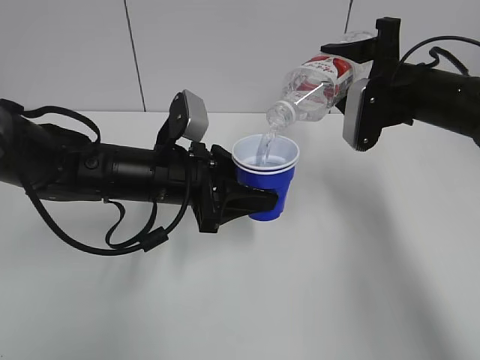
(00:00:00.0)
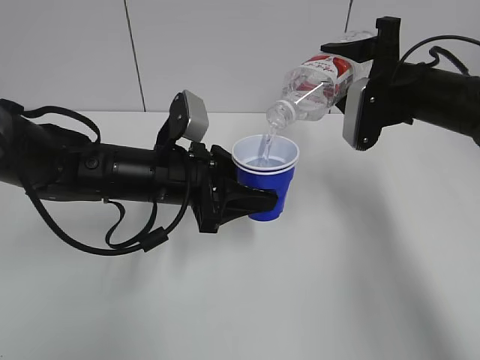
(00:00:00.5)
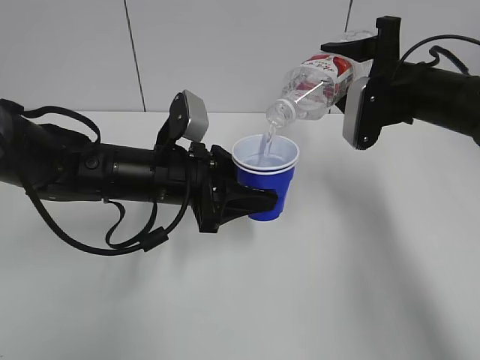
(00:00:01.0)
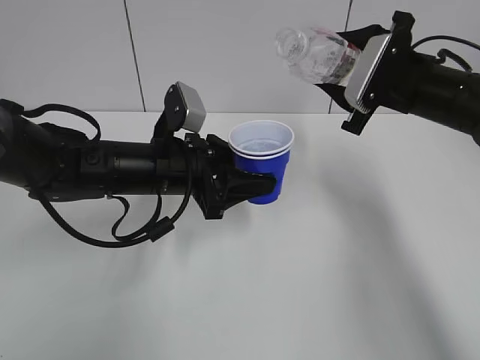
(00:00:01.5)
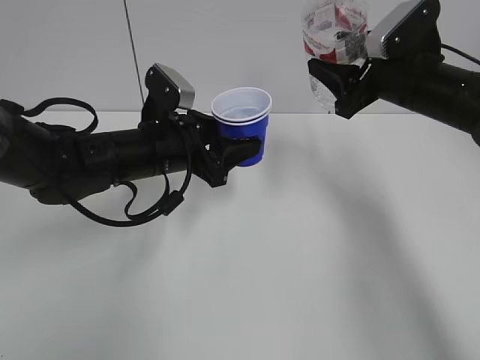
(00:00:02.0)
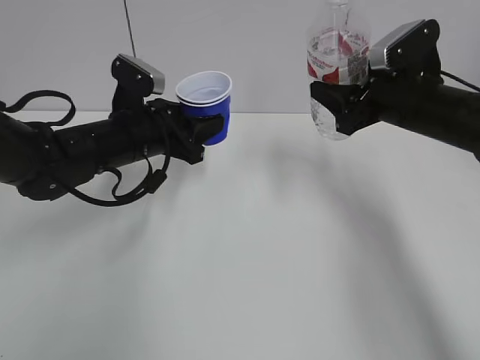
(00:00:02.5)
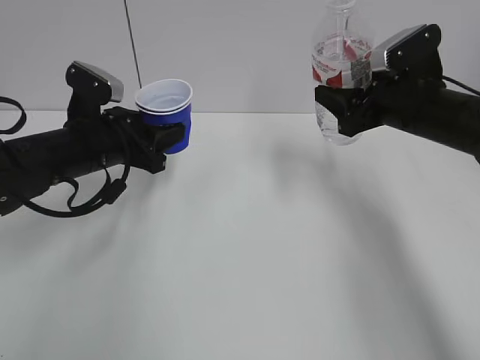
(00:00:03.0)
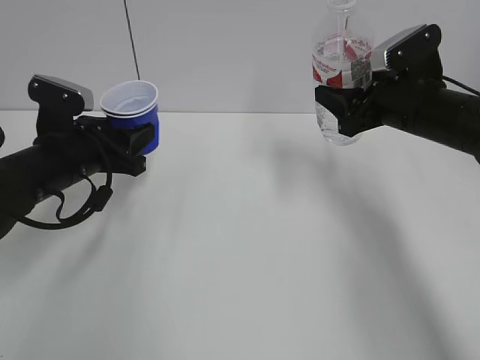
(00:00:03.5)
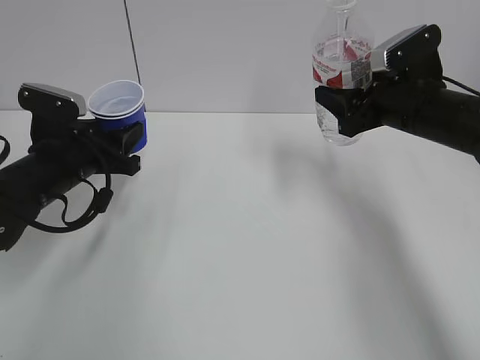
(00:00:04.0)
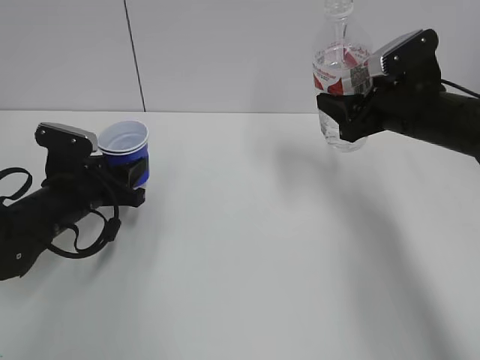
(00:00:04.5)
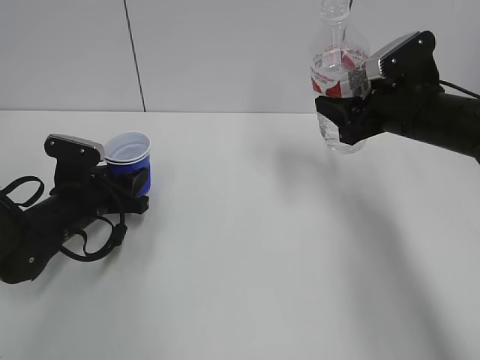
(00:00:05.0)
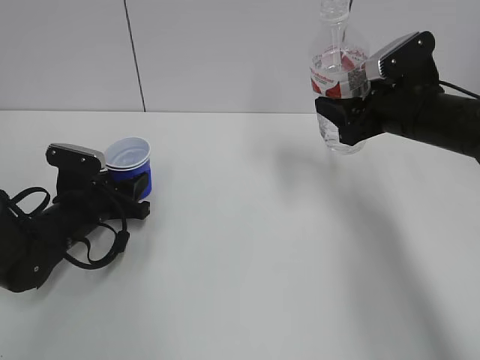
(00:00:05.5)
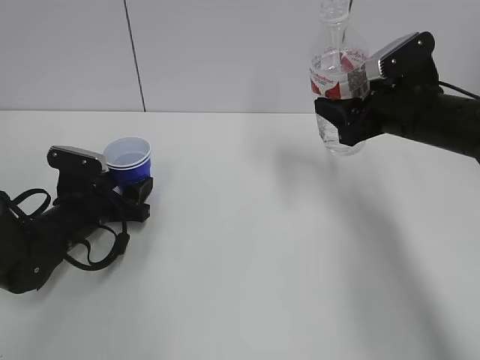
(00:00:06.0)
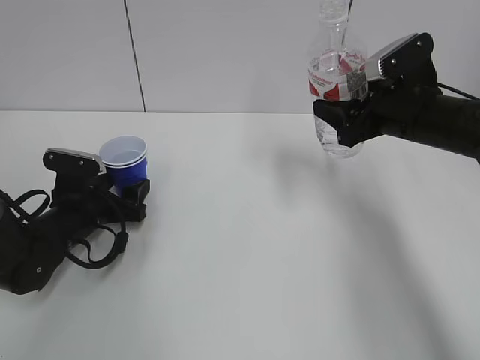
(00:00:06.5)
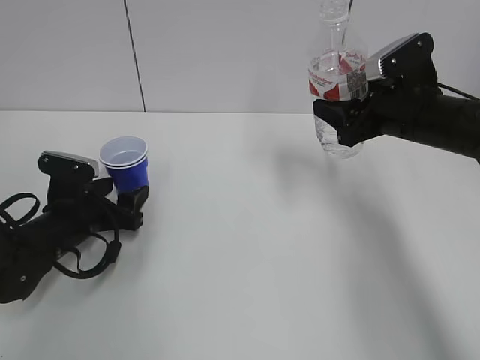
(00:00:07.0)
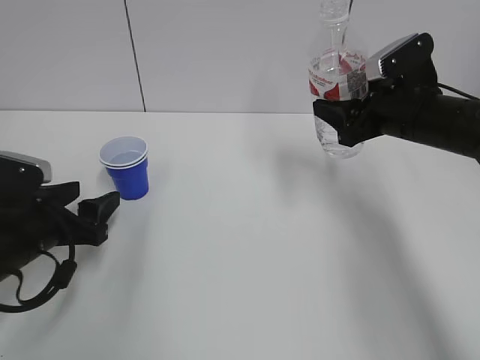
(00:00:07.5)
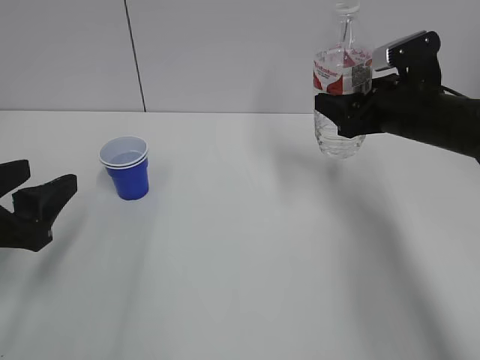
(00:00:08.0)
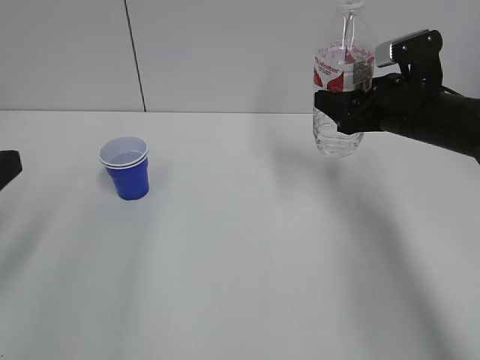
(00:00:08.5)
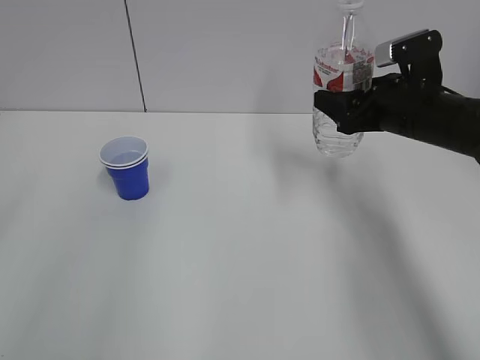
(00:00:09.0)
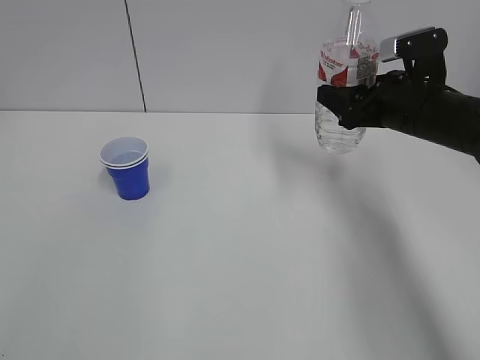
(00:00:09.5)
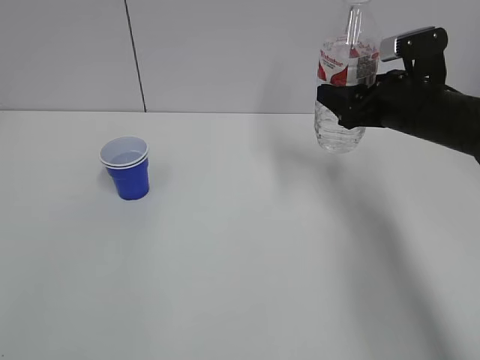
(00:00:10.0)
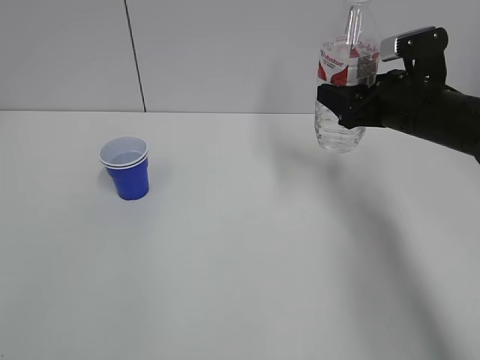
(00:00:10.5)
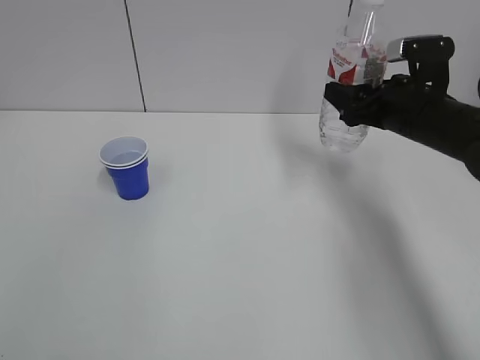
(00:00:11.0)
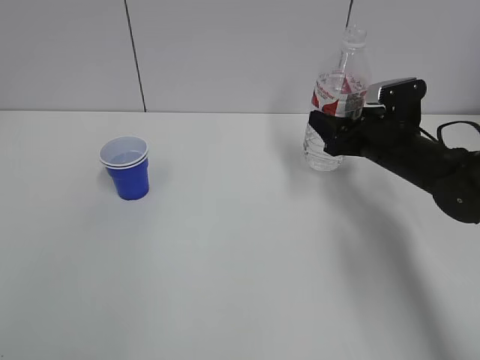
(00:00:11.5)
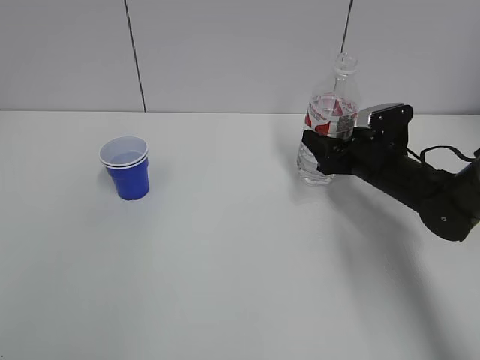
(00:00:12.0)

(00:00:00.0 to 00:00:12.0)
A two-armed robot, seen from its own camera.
Step, 00:00:02.5 - 00:00:06.5: Place the paper cup with the left hand.
00:00:02.0 - 00:00:04.0: The left gripper travels to the left by approximately 10 cm, and closes.
00:00:04.0 - 00:00:06.0: The left gripper moves downward, roughly 10 cm, and opens up.
00:00:06.0 - 00:00:08.0: The left gripper goes some 20 cm backward and upward.
00:00:08.0 - 00:00:10.0: The left gripper heads backward and upward, covering about 25 cm, and closes up.
00:00:10.0 - 00:00:12.0: The right gripper shifts roughly 10 cm downward.

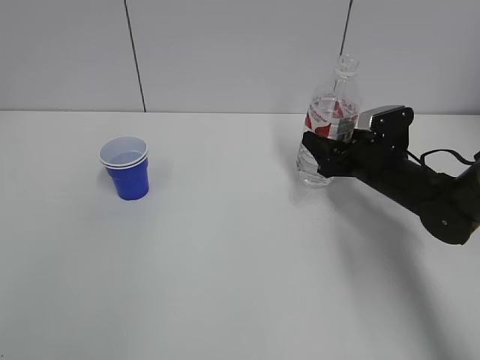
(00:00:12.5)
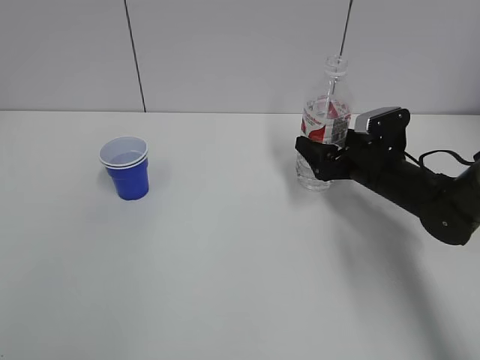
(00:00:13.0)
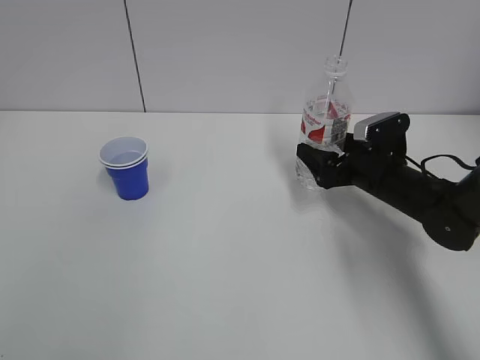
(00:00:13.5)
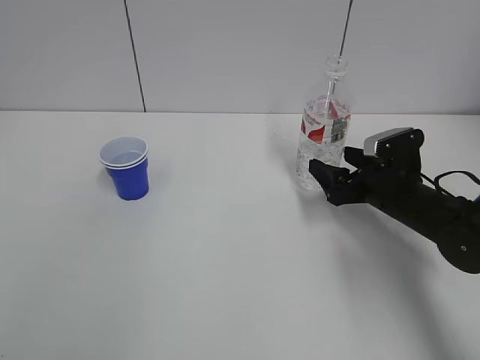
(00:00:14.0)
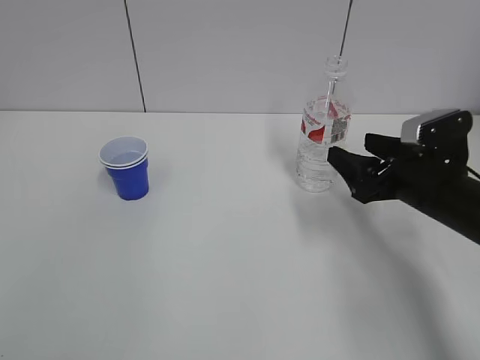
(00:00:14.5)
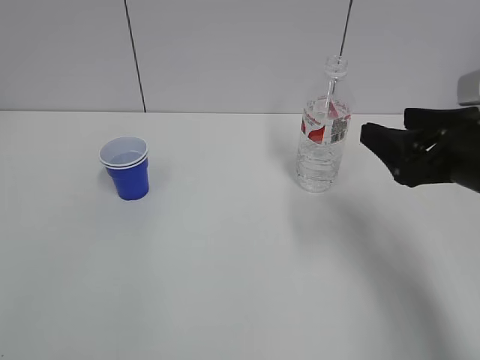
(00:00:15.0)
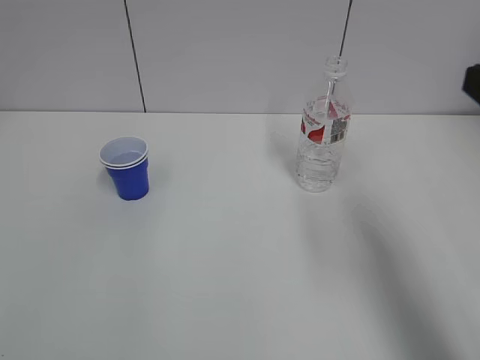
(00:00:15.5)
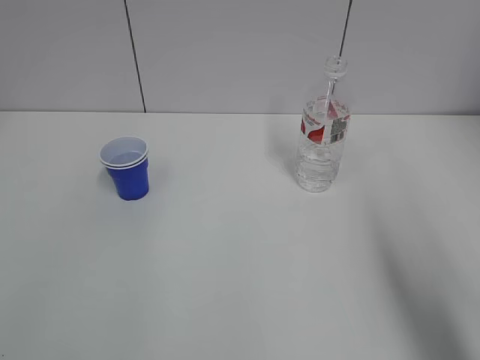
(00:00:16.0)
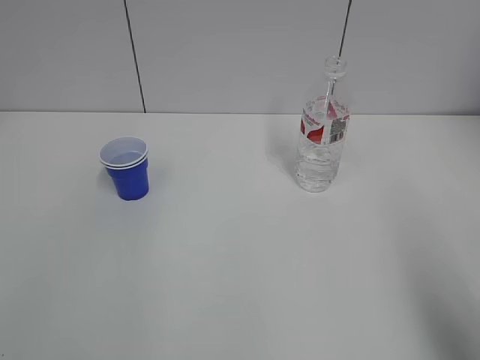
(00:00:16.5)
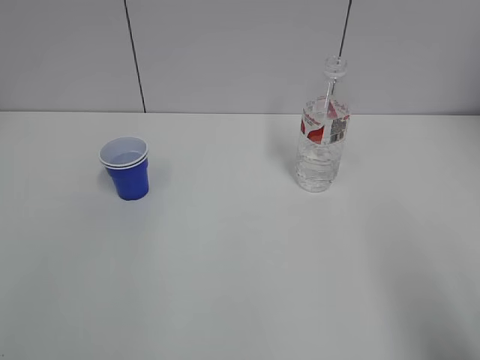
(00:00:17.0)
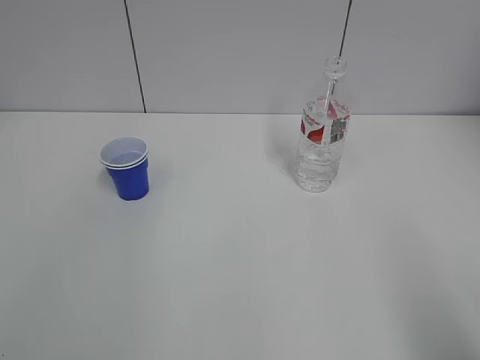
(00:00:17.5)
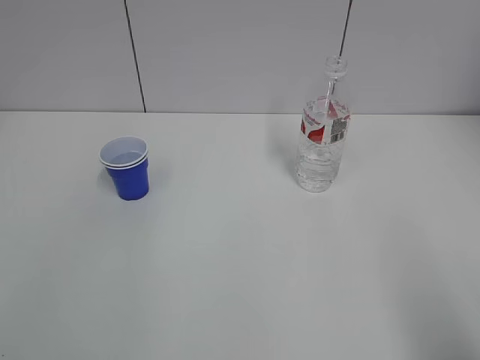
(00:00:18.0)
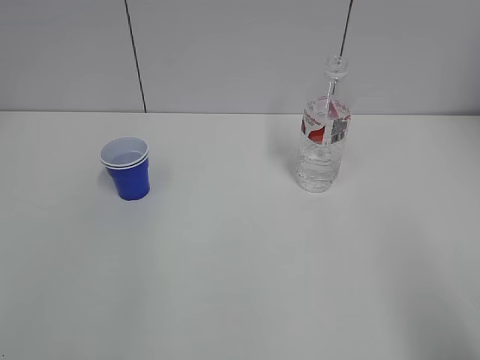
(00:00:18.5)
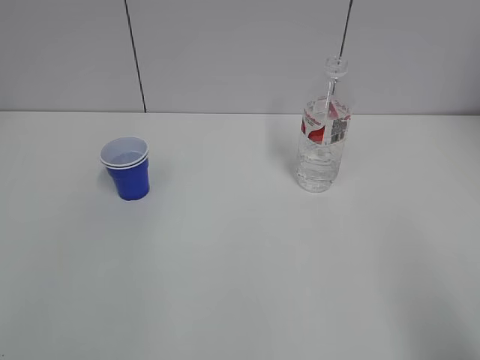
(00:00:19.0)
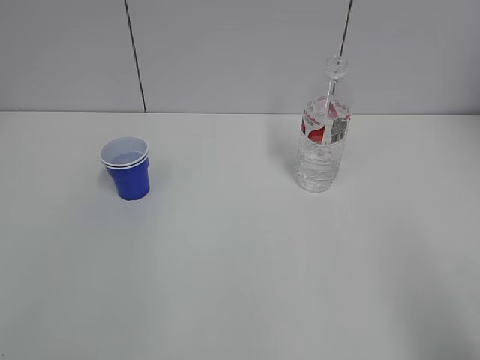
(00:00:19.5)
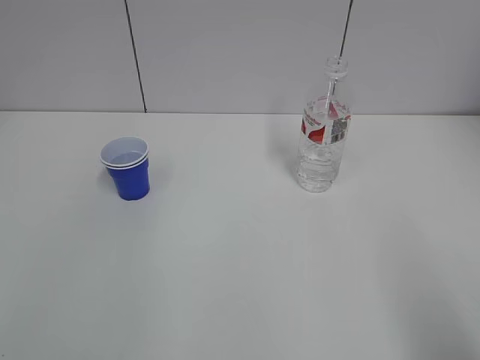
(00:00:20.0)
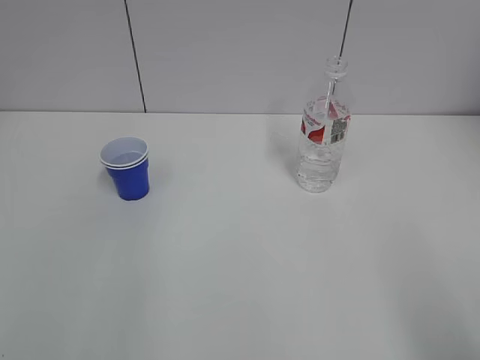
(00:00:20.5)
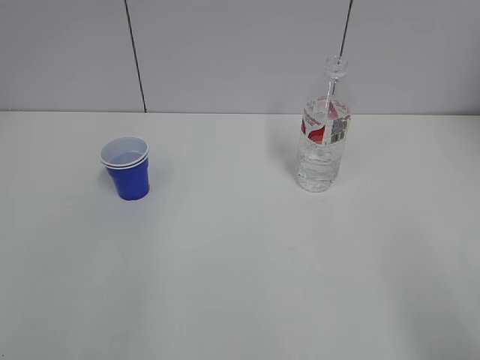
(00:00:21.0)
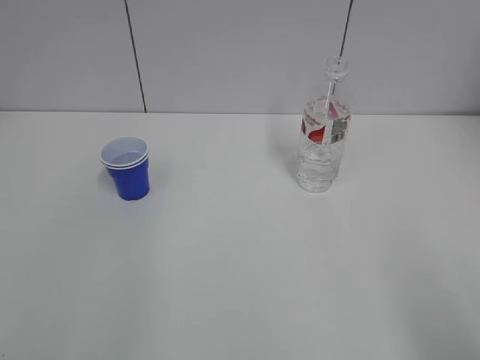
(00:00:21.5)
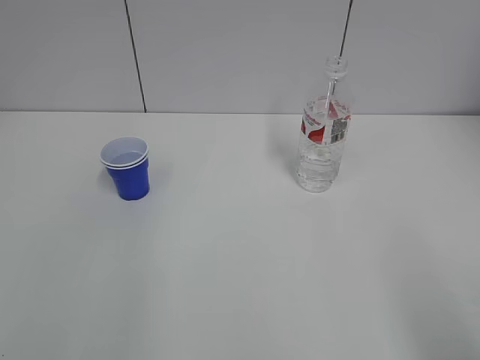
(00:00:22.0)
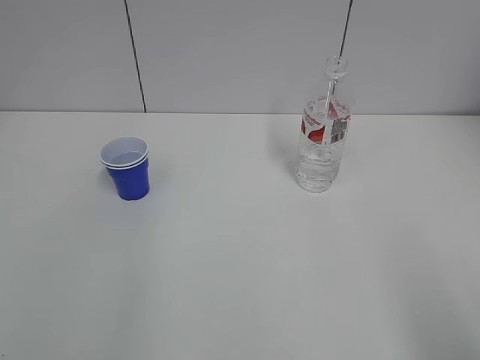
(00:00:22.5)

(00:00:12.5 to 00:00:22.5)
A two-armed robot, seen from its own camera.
00:00:12.5 - 00:00:14.5: The right gripper moves backward and upward, some 10 cm, and opens up.
00:00:14.5 - 00:00:16.5: The right gripper heads backward and upward, covering roughly 30 cm.

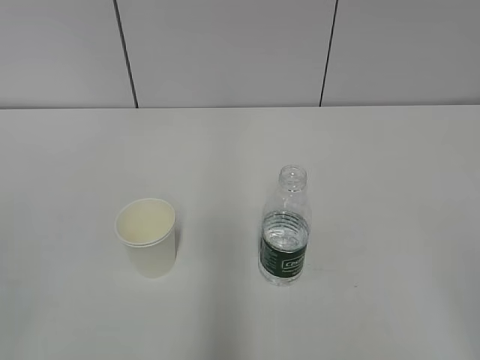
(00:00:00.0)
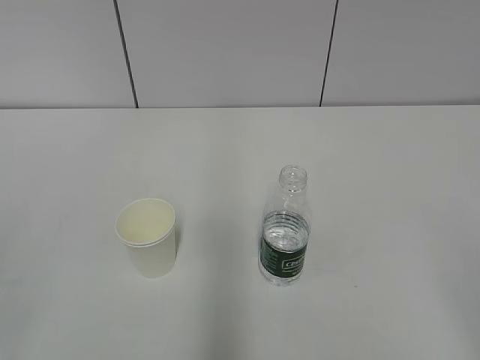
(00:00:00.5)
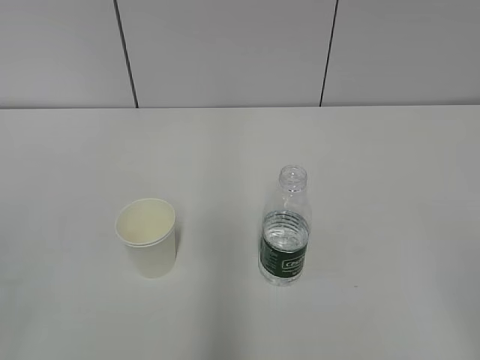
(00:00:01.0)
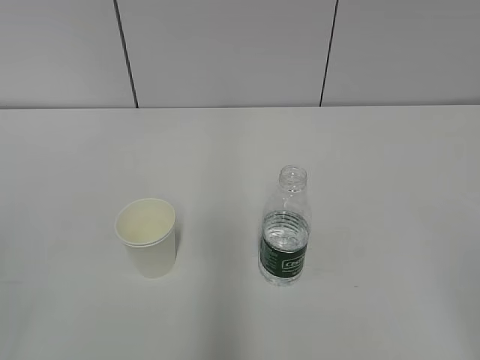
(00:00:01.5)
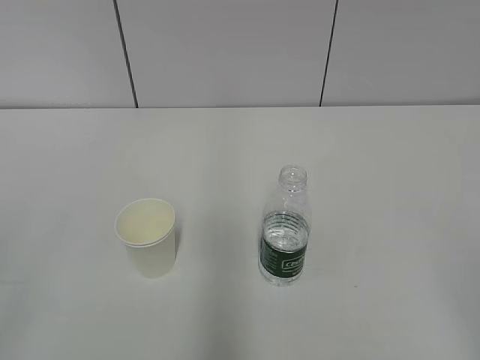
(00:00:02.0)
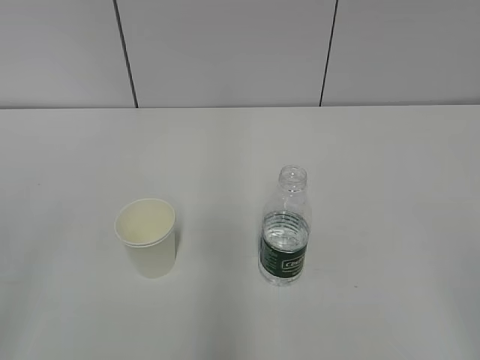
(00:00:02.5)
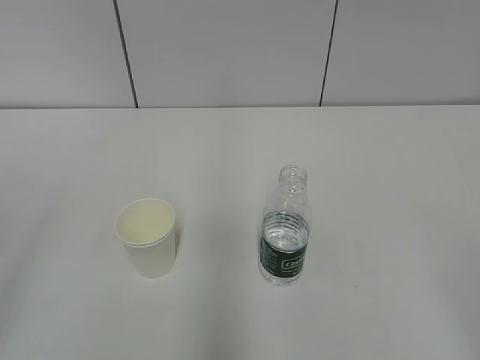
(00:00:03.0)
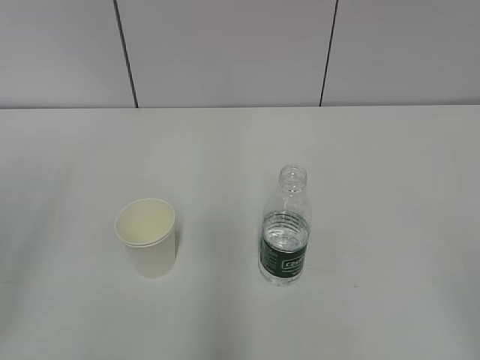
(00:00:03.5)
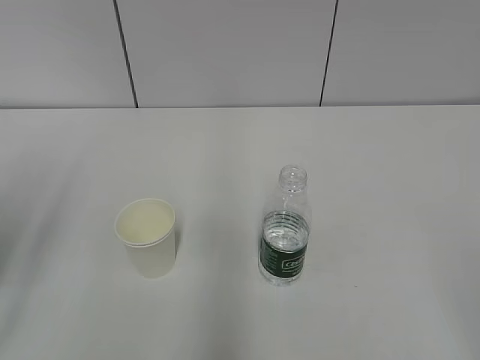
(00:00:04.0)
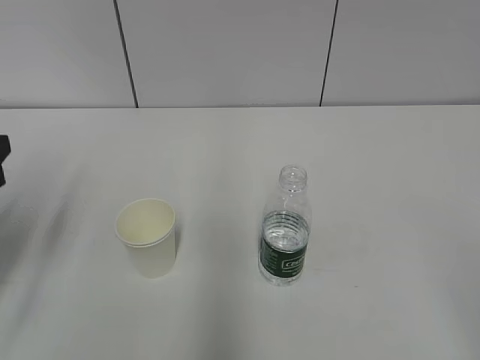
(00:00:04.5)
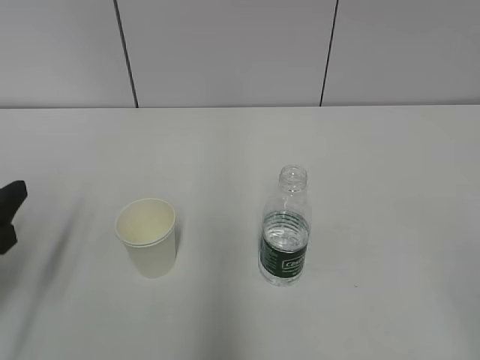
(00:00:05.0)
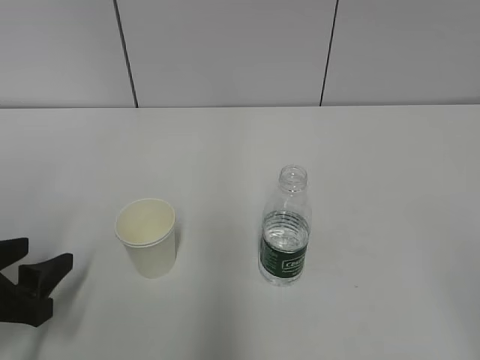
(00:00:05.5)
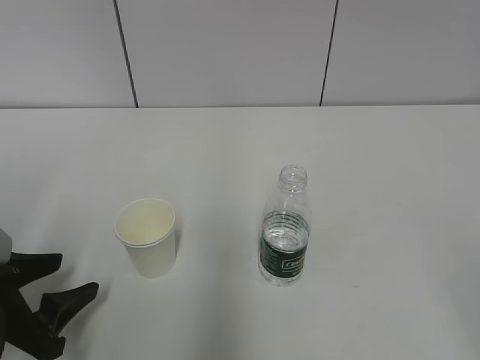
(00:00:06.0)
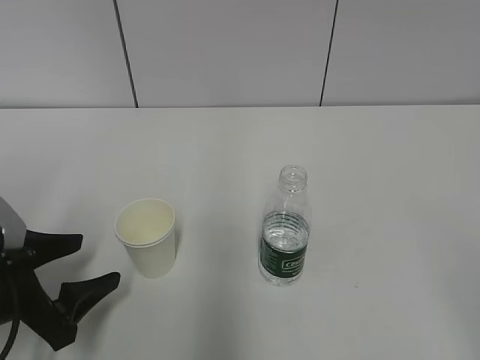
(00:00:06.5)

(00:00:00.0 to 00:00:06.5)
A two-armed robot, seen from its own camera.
00:00:02.0 - 00:00:04.5: The left gripper travels forward by about 25 cm.
00:00:04.5 - 00:00:06.5: The left gripper moves downward and to the right, some 10 cm.
